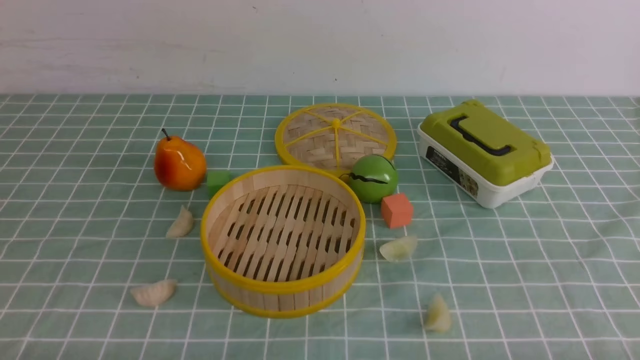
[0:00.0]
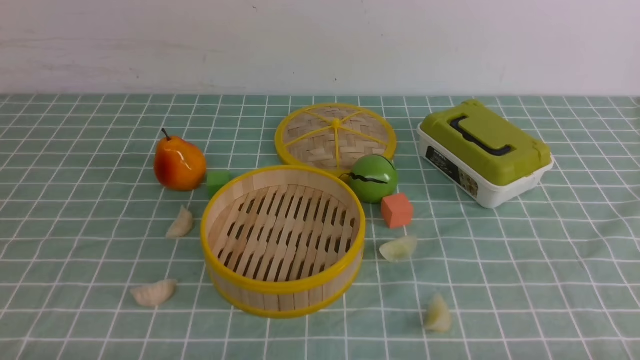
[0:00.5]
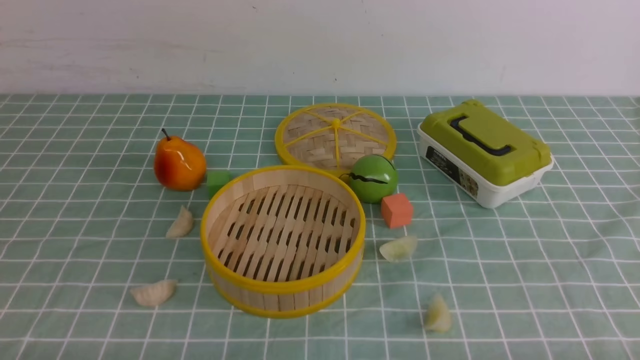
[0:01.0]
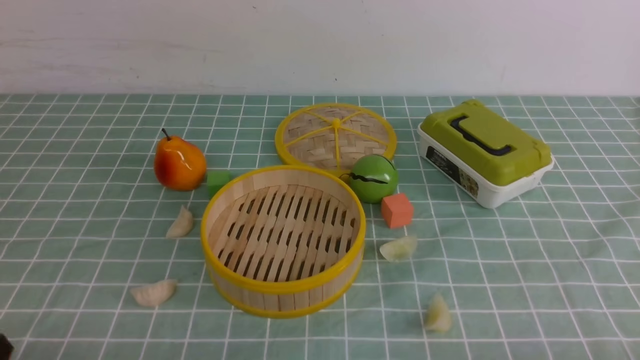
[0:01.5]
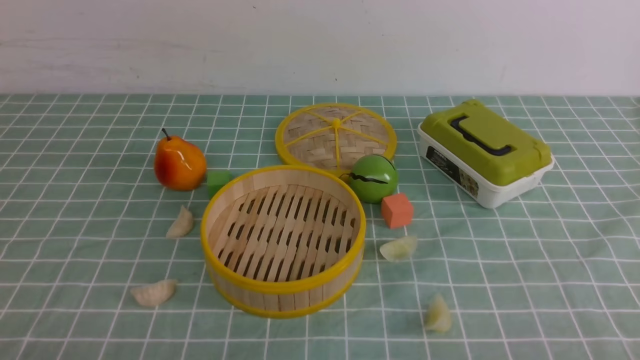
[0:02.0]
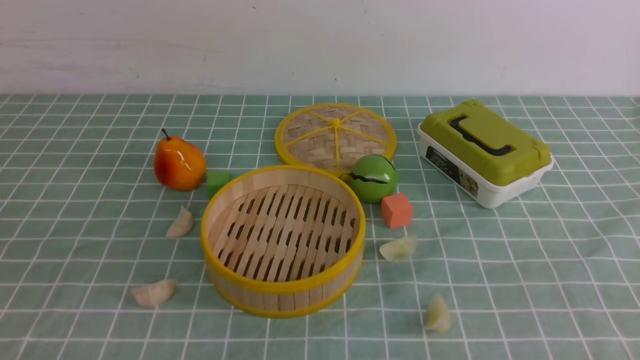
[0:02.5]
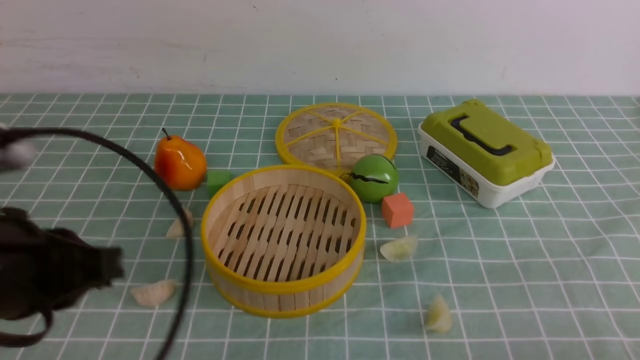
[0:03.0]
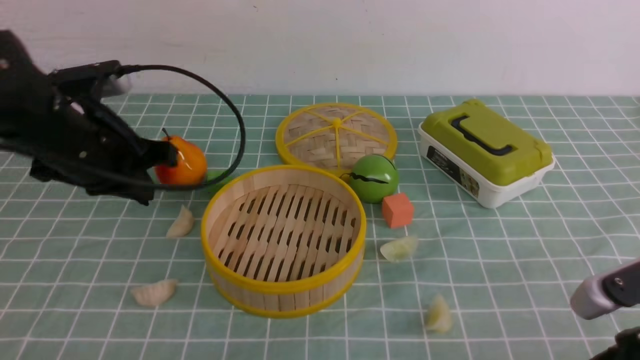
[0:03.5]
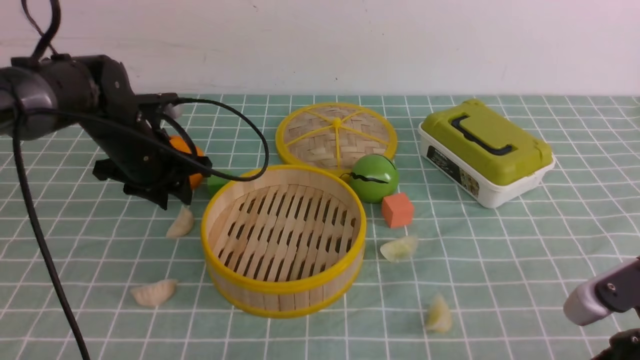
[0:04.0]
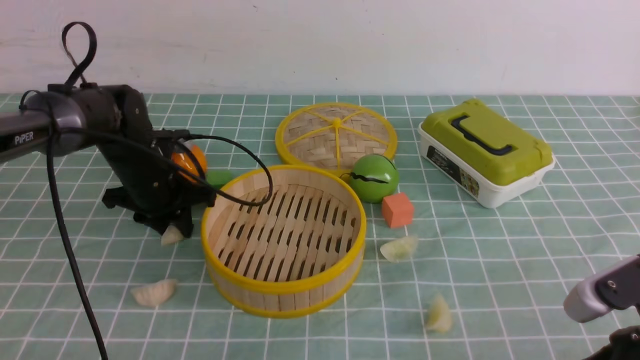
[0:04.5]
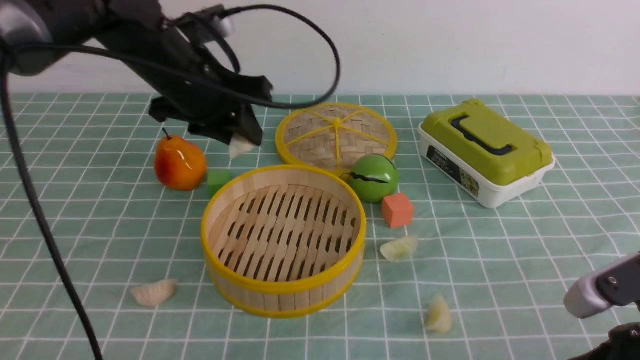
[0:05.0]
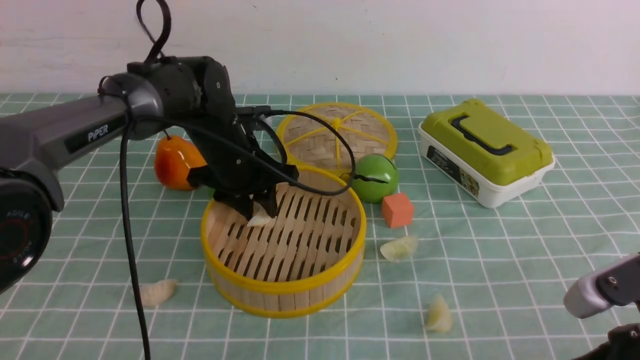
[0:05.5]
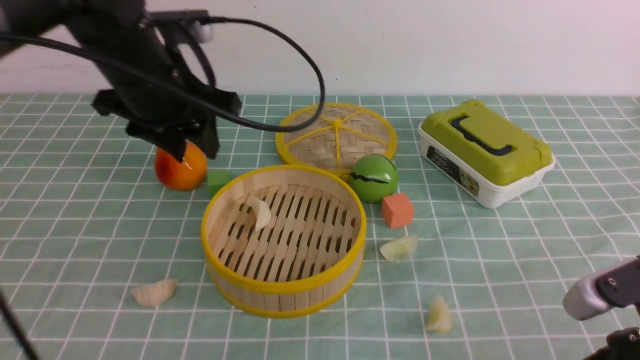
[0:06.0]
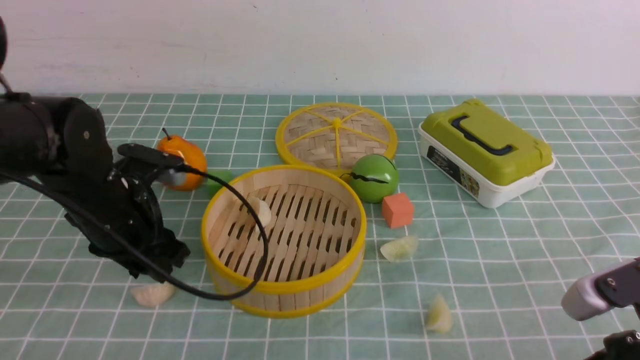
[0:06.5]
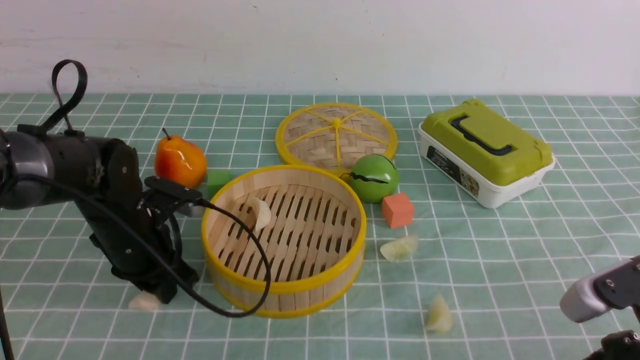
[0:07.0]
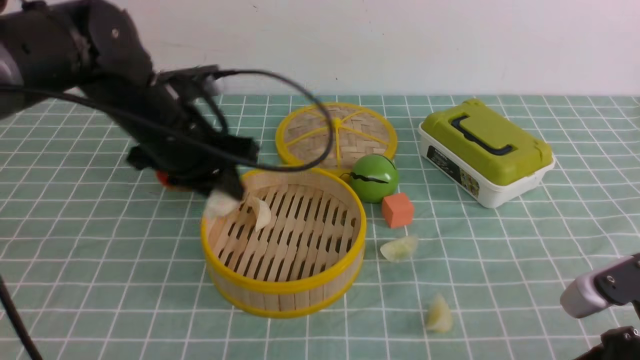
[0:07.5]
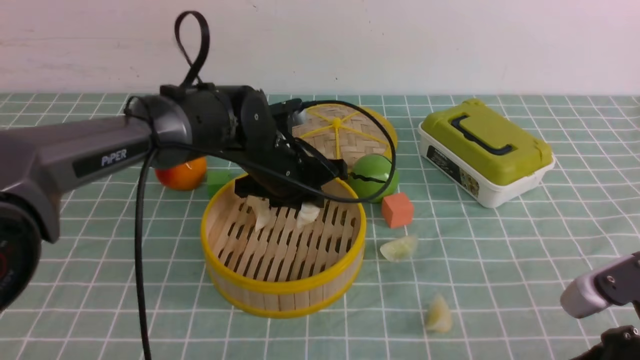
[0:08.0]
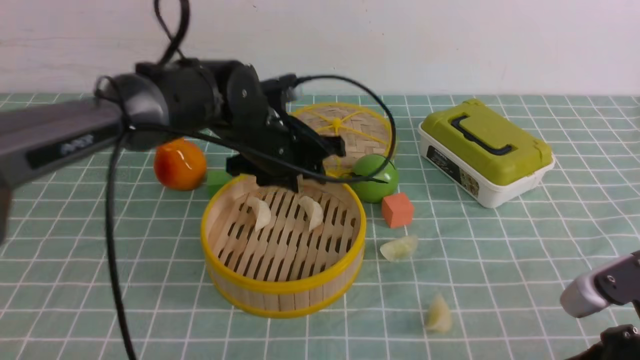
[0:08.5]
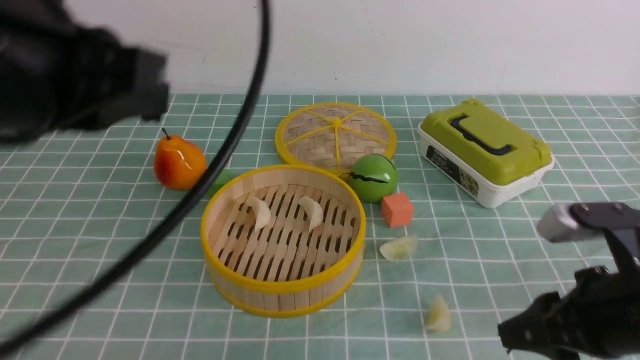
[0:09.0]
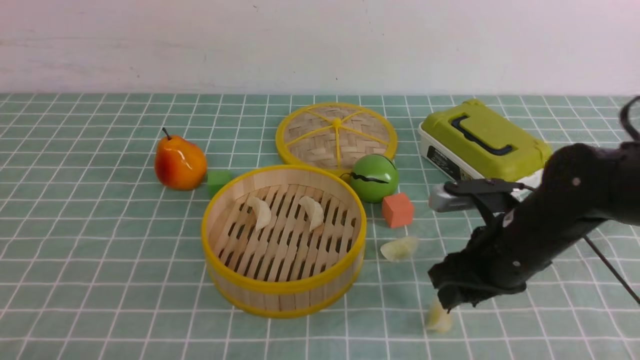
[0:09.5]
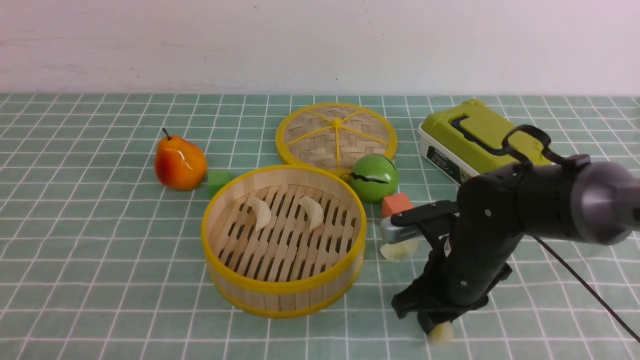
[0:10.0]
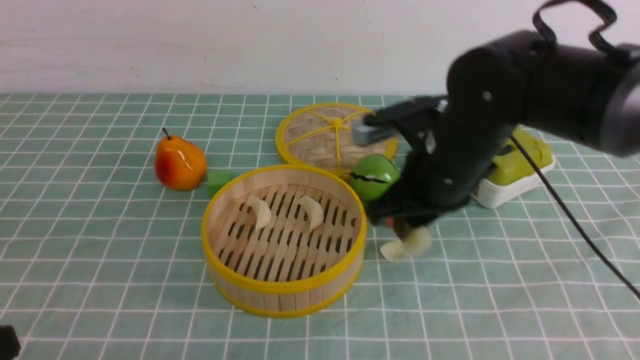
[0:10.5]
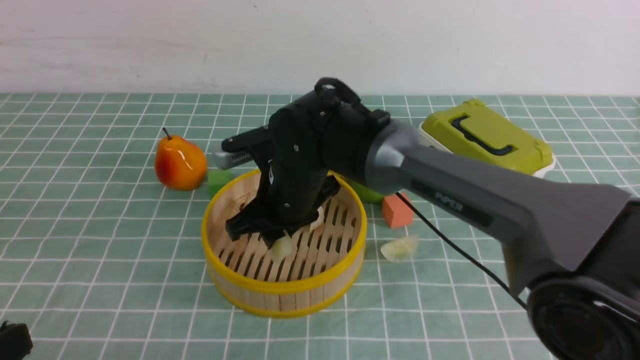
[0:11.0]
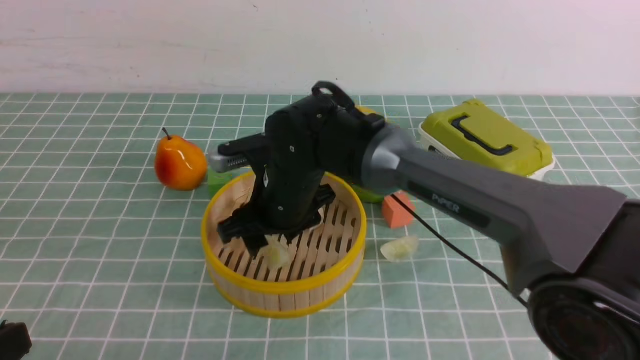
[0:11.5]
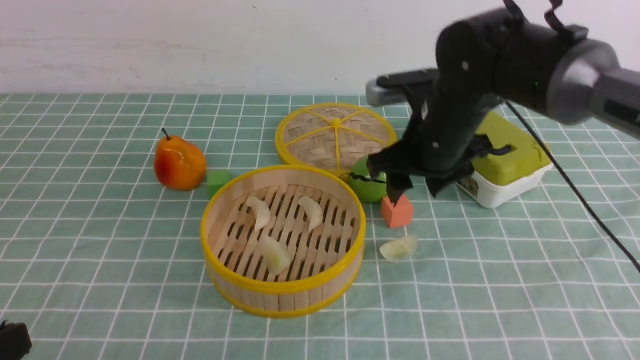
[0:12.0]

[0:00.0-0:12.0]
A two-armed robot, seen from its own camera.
Task of the whole recording: put the dumplings into the steamer on the table with the blue tablecloth.
Step, 0:00.0 to 0:04.0: use the left arm to grab a dumpling.
Step, 0:04.5 to 0:05.5: use the left arm to put the dumpling into the steamer.
Step, 0:06.0 to 0:07.0: use the left arm to grab a dumpling.
Step, 0:07.5 to 0:08.5: use the left arm to put the dumpling into the steamer.
Step, 0:09.0 to 0:10.0: use the right arm to grab a dumpling.
Step, 0:10.5 to 0:11.5: use the right arm to put the dumpling into the steamer.
0:02.0 to 0:04.0: The right gripper moves forward and to the left, roughly 10 cm, while the left gripper is displaced forward by some 40 cm, and closes, then opens again.
0:04.0 to 0:06.0: The left gripper goes up and down, about 10 cm each way, reversing 2 times.
0:06.0 to 0:08.0: The left gripper swings up and down, approximately 15 cm each way, with 2 reversals, and closes its fingers.
0:08.0 to 0:10.0: The right gripper shifts some 20 cm forward and to the left, and opens up. The left gripper goes roughly 40 cm backward and to the left, and closes up.
0:10.0 to 0:12.0: The right gripper travels upward and forward by about 10 cm, goes to the left and returns, some 20 cm each way, and opens its fingers.

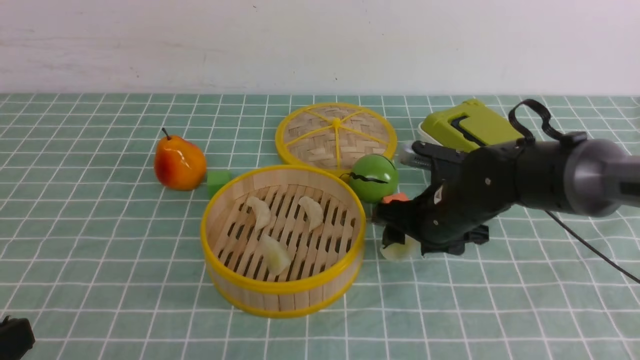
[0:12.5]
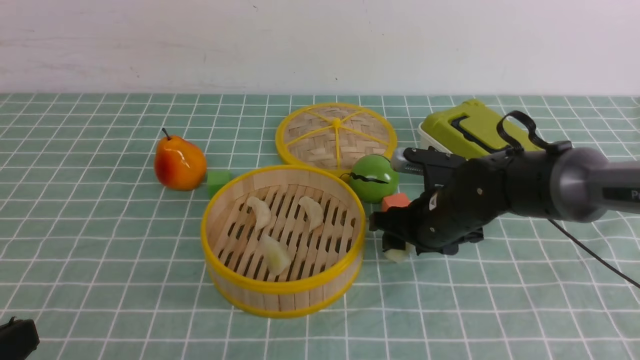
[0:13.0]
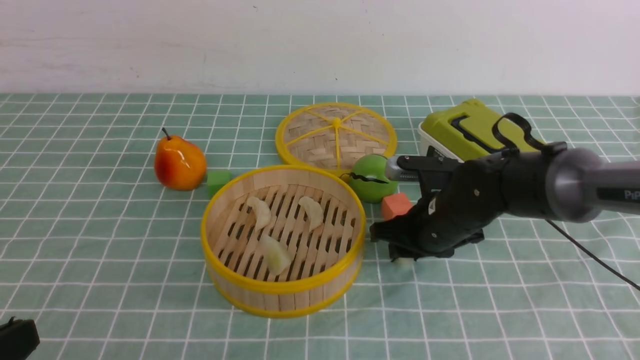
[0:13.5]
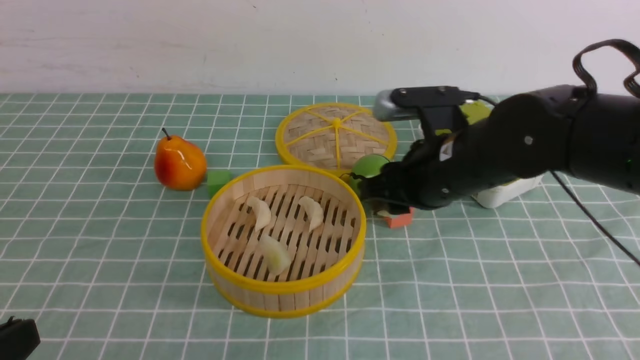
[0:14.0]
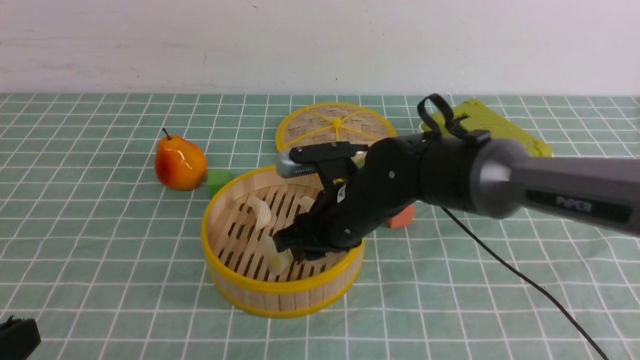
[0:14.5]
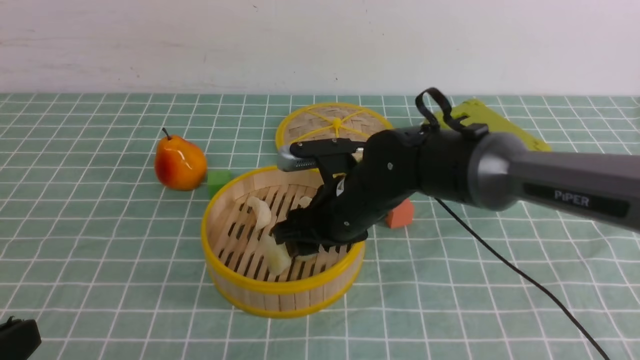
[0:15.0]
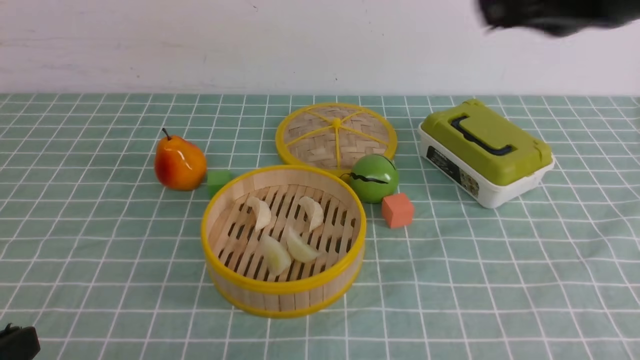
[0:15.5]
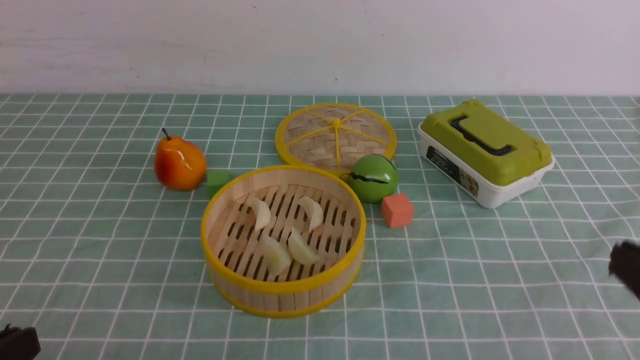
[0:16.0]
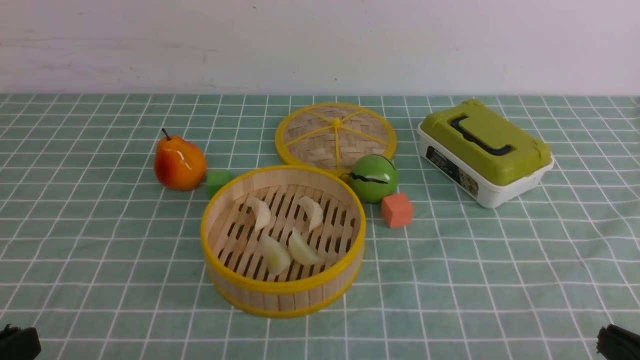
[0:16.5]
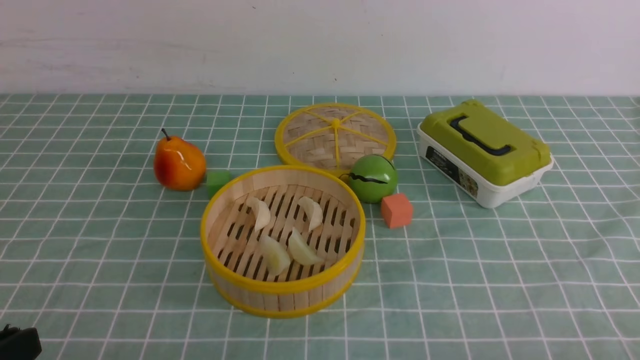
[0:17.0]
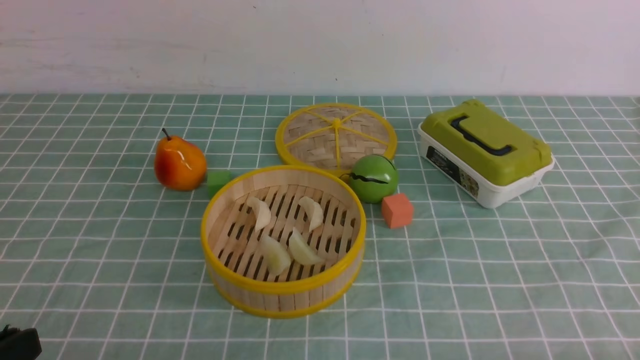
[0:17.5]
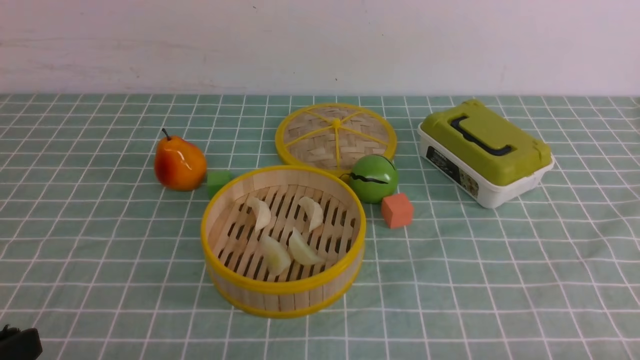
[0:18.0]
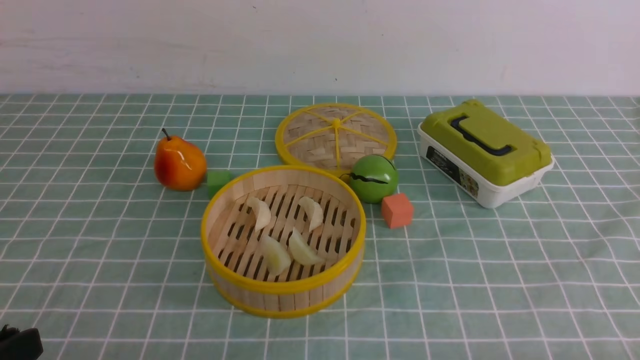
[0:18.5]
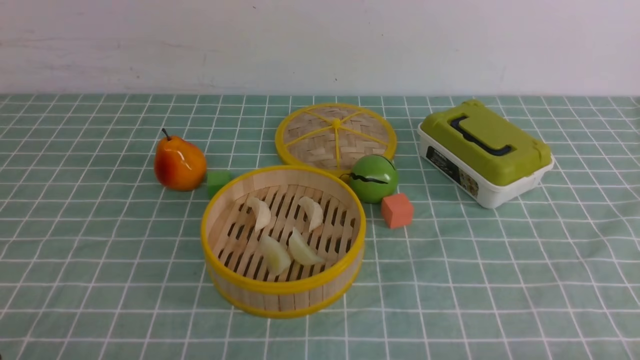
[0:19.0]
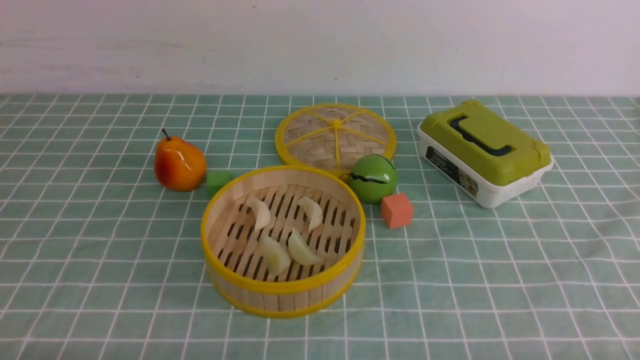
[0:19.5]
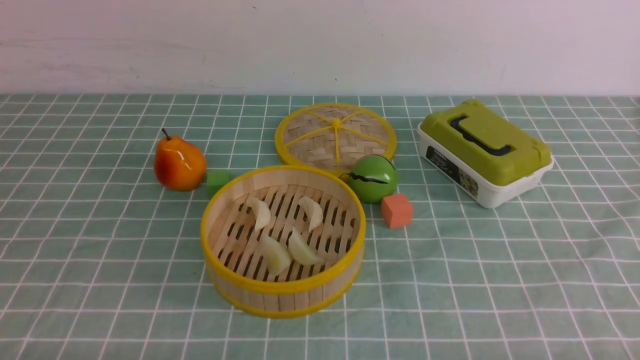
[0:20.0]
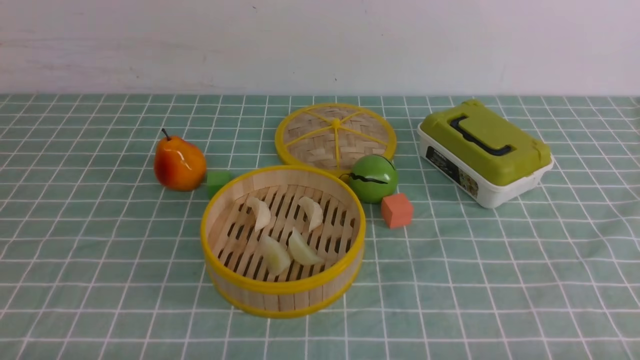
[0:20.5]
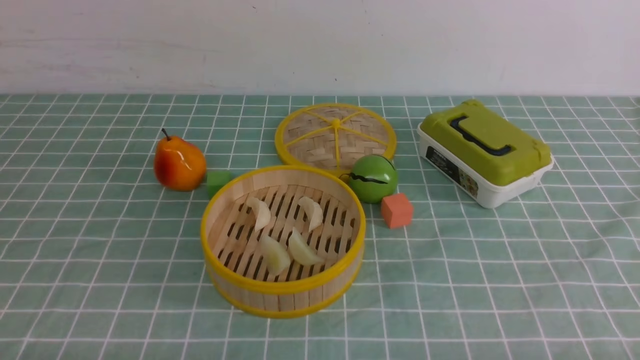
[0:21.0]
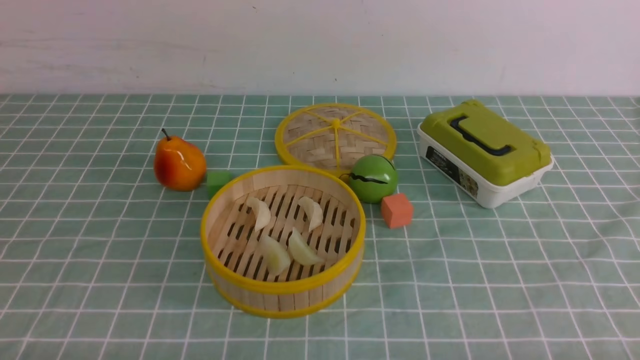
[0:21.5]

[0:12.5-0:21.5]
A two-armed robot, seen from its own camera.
Task of the whole recording: put the dumplings into the steamer on the table with the blue tablecloth.
Step, 0:14.0 to 0:15.0: use the right arm to put the dumpling into the steamer.
0:12.5 to 0:14.5: The right gripper goes some 10 cm to the left, and closes.
0:14.5 to 0:17.0: The right gripper is displaced backward and to the right by about 40 cm, and closes.
